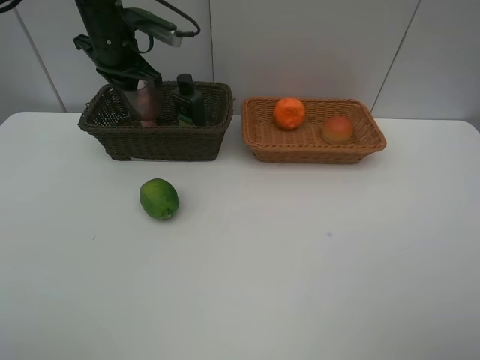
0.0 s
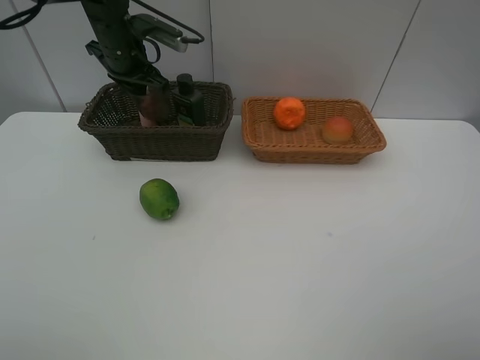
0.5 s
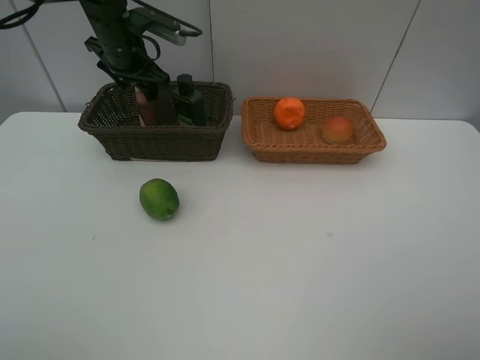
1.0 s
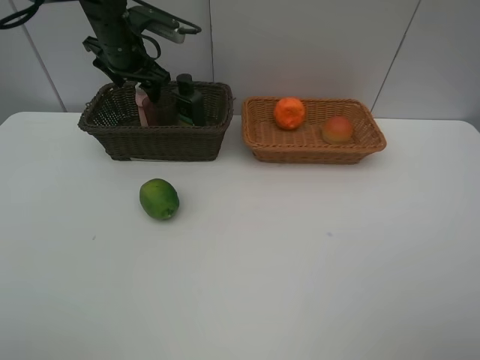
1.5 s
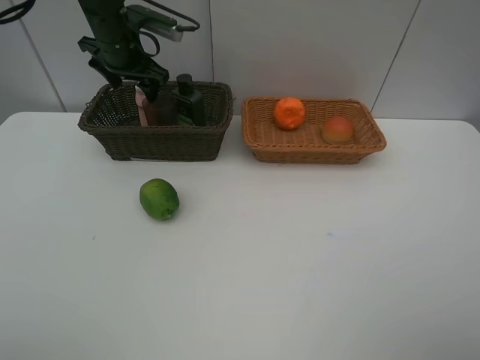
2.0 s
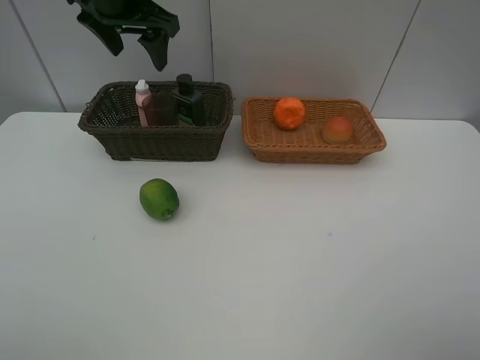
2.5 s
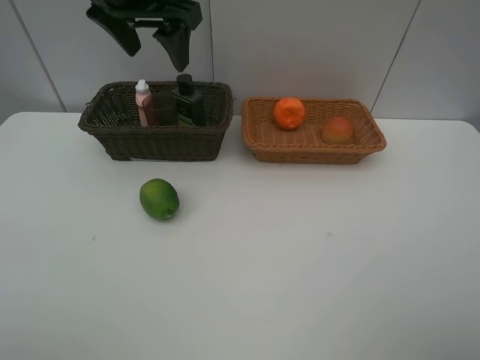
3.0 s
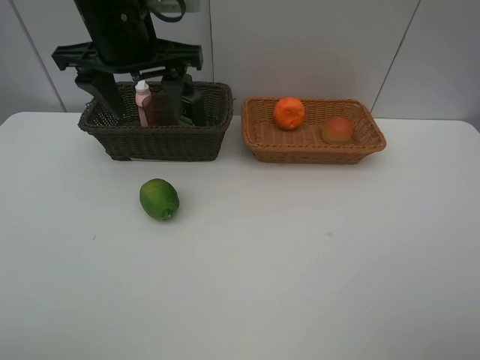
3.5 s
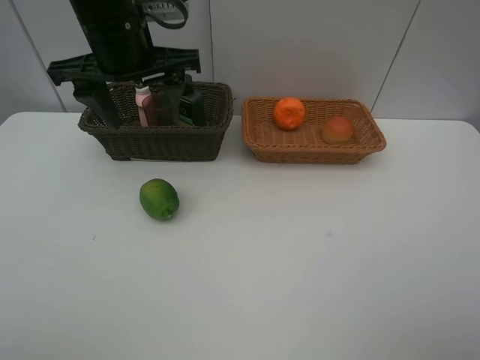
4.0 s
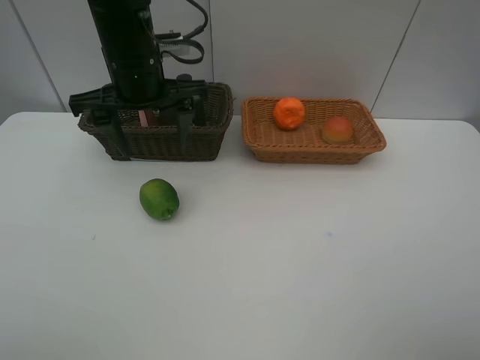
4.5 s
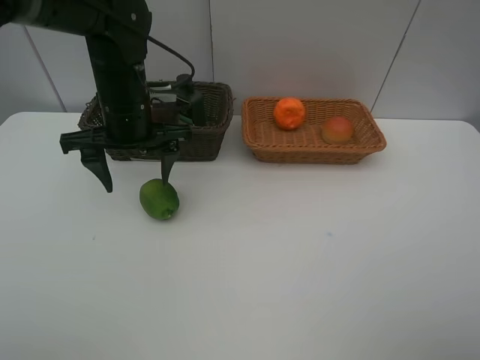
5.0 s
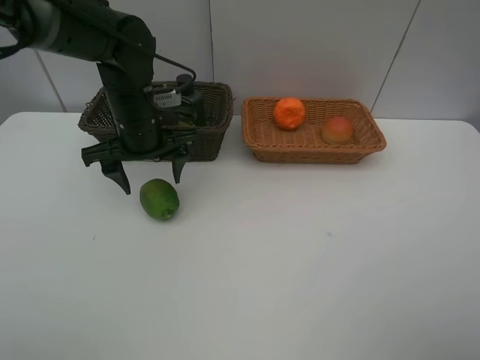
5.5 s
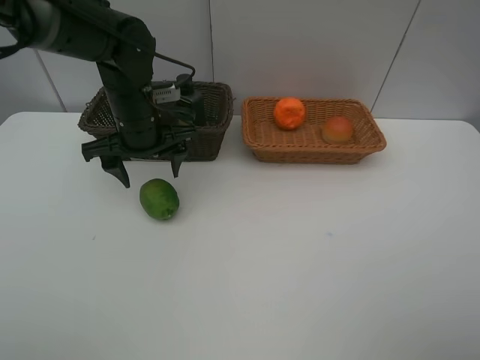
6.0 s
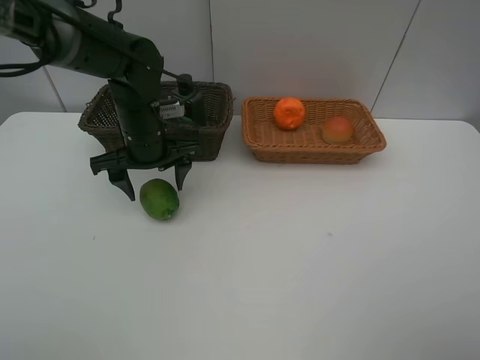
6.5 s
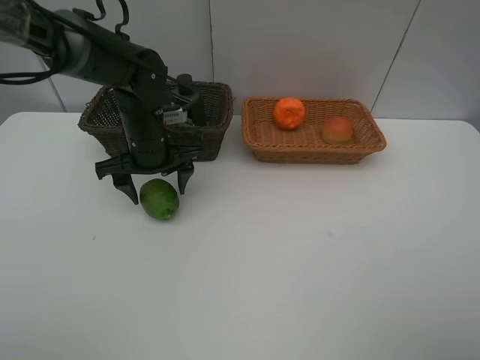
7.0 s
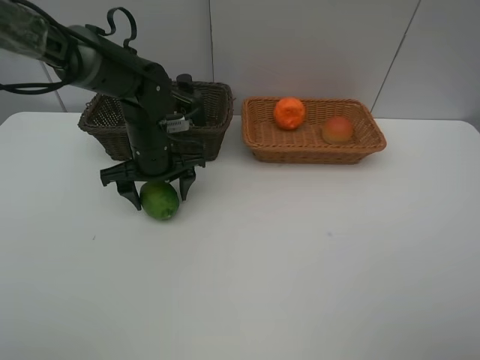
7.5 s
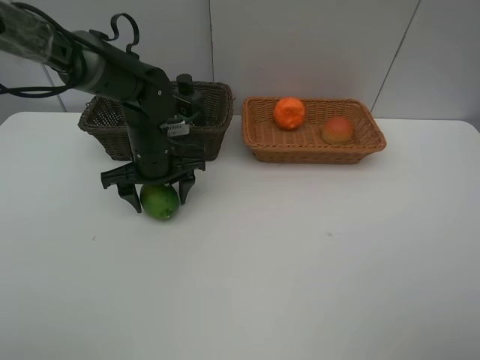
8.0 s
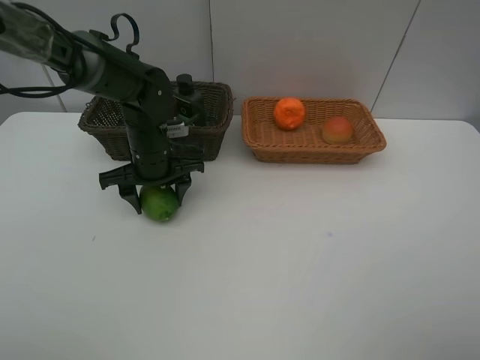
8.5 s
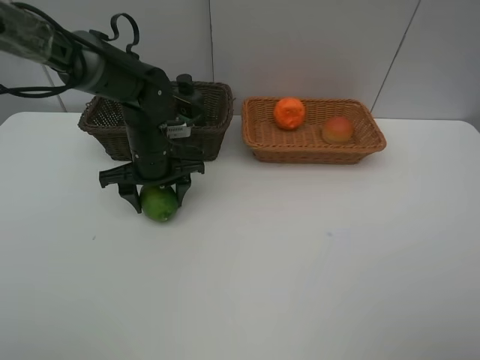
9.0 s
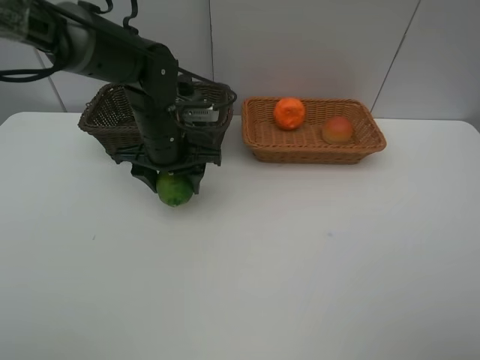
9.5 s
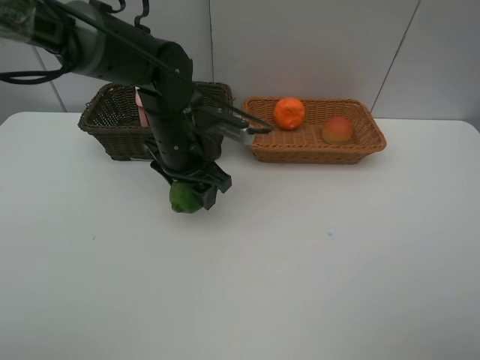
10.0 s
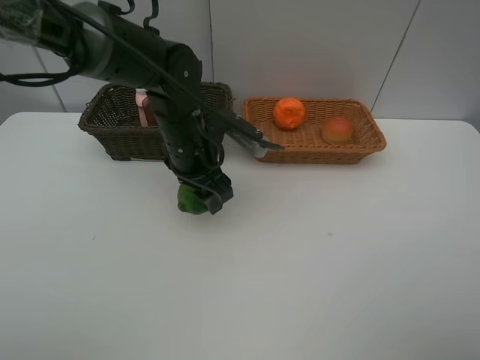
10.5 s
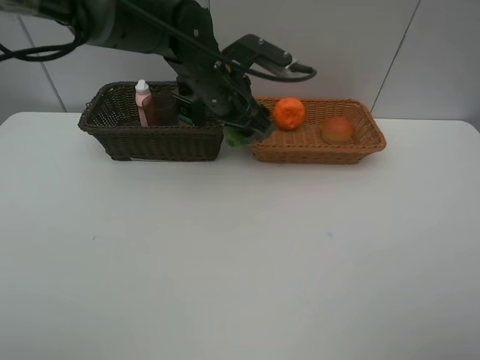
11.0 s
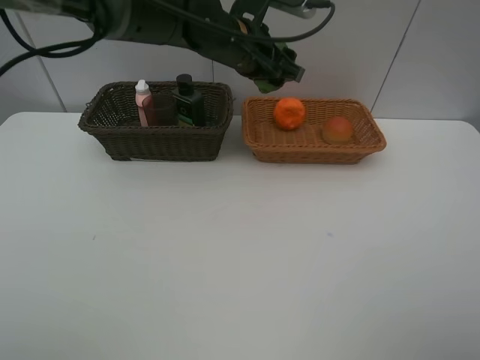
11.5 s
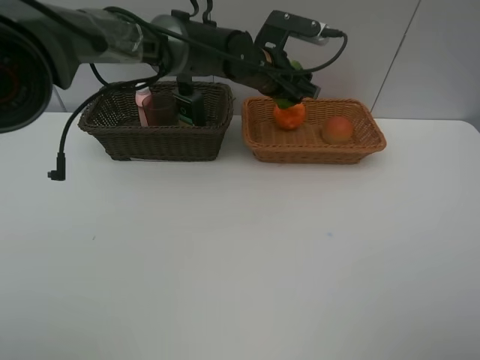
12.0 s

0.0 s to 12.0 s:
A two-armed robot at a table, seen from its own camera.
Task of the whole recording: place multiple objects separately in different baskets.
0.0 to 2.0 s: The left gripper opens up.
2.0 to 4.0 s: The left gripper moves backward, to the right and upward, approximately 20 cm.
4.0 to 6.0 s: The left gripper shifts some 15 cm downward.
6.0 to 8.0 s: The left gripper goes about 5 cm downward.
8.0 to 10.0 s: The left gripper goes approximately 5 cm to the right.
10.0 to 12.0 s: The left gripper moves to the right and forward, approximately 15 cm.

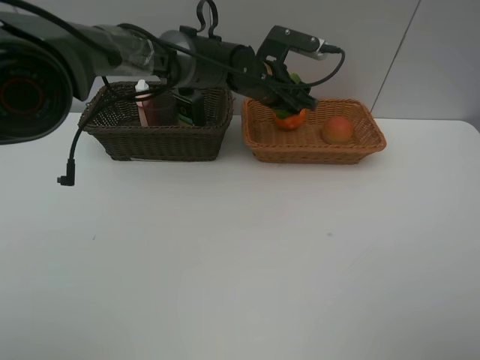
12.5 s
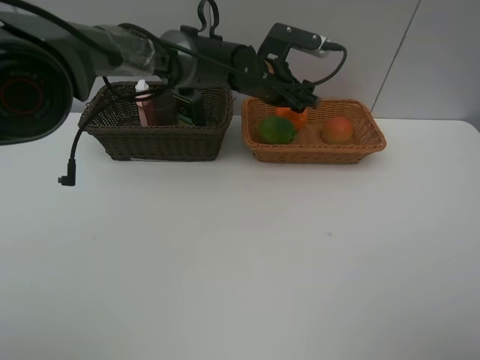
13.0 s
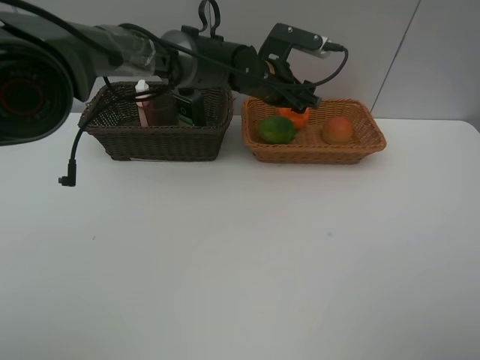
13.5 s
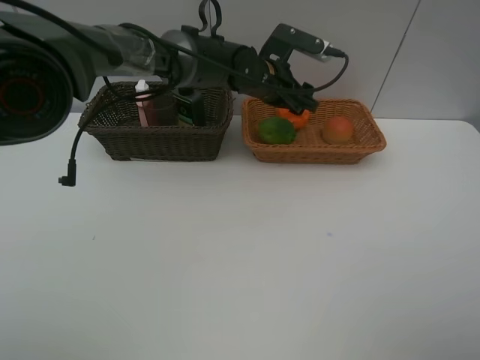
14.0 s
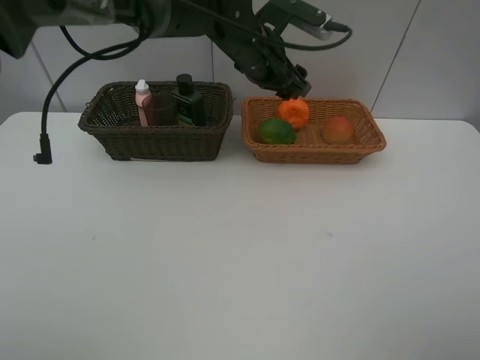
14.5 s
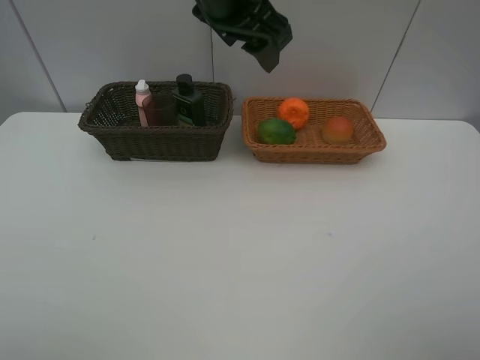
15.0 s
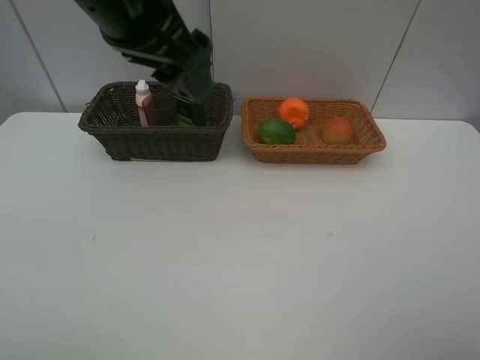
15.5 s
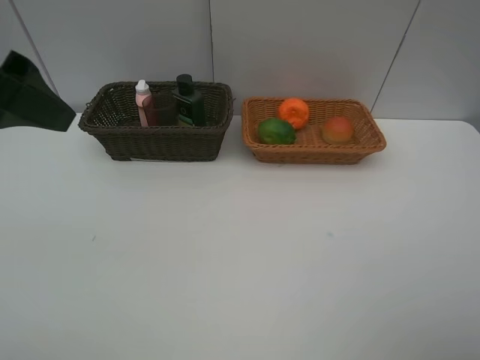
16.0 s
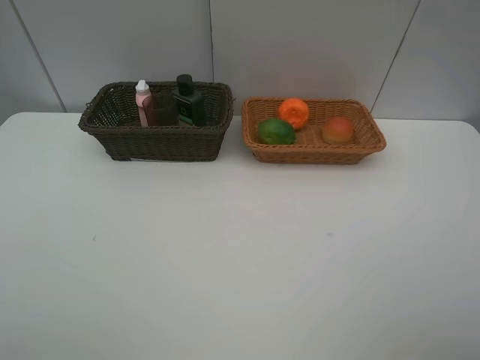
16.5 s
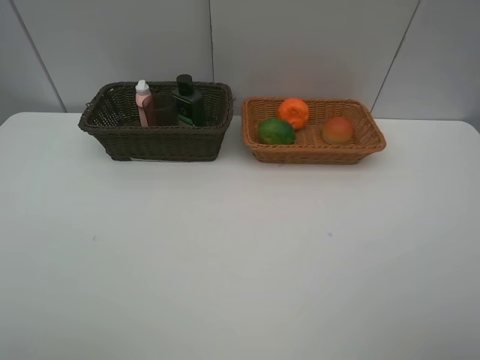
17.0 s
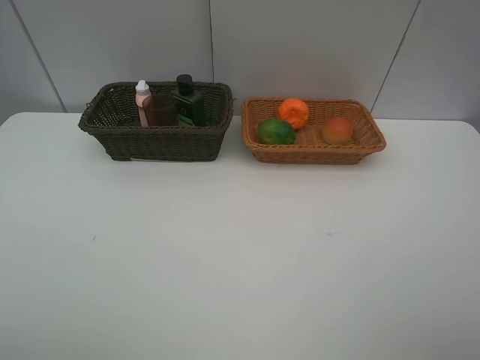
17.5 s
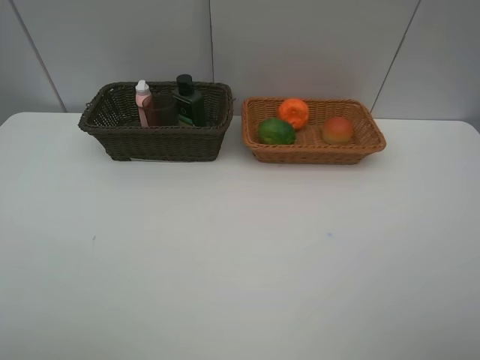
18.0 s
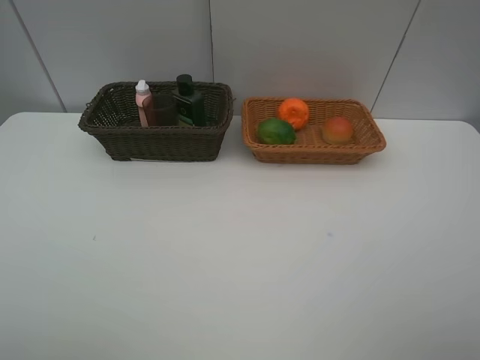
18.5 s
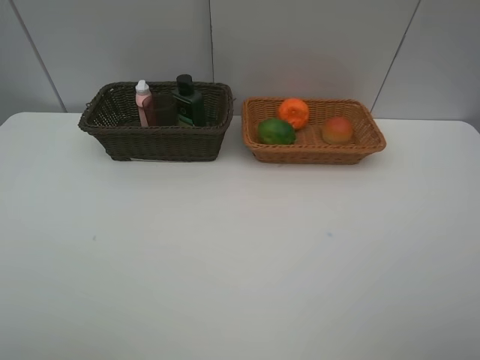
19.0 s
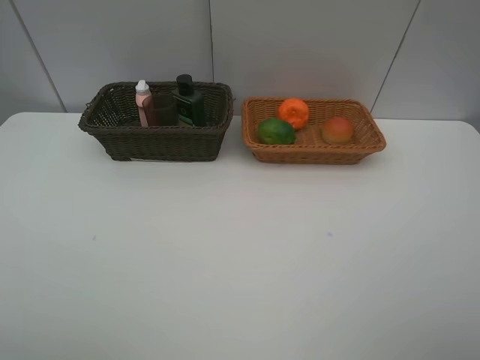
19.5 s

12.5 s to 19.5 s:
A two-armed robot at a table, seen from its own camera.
Task of the whole recording: place multiple objects separately in different baskets.
12.5 to 14.5 s: The left gripper moves upward, about 5 cm.
14.5 to 16.0 s: The left gripper goes roughly 35 cm to the left, backward and upward.
16.0 to 17.5 s: The left gripper moves backward and to the left, approximately 20 cm.
17.5 to 19.5 s: Both grippers stay about where they are.

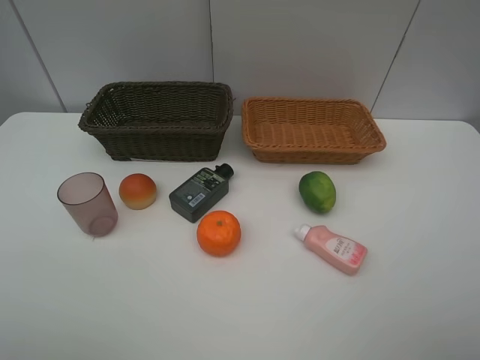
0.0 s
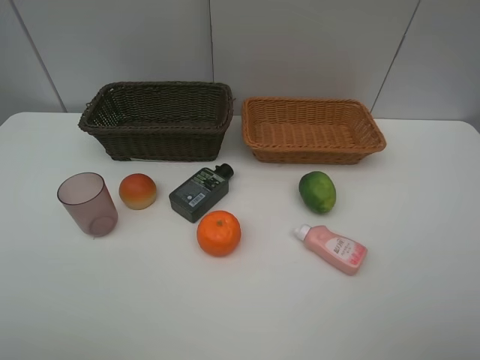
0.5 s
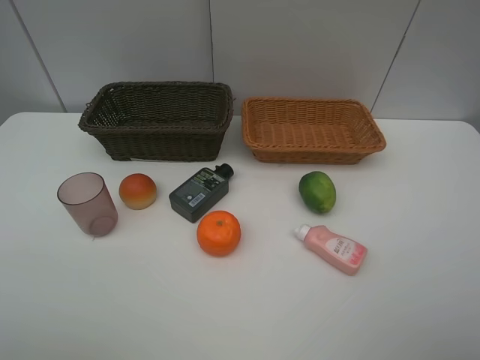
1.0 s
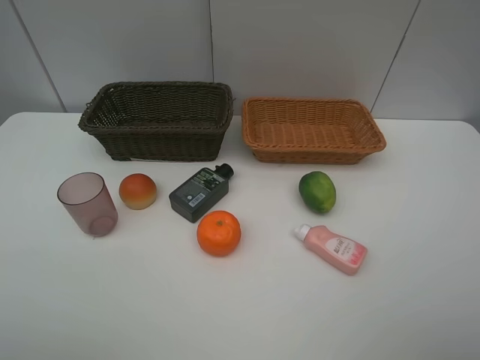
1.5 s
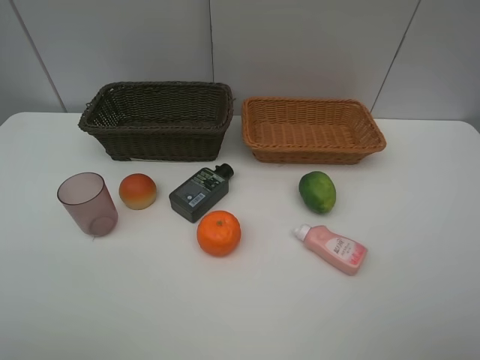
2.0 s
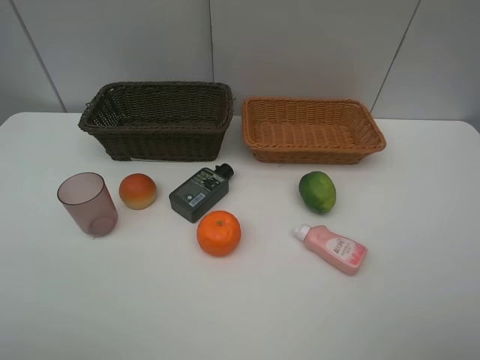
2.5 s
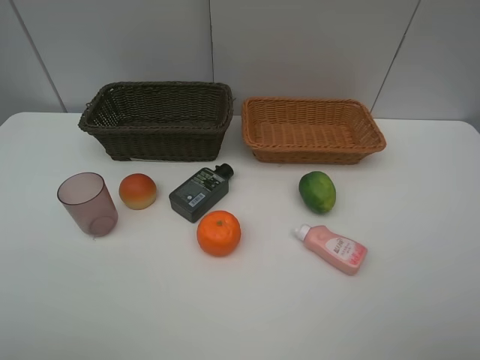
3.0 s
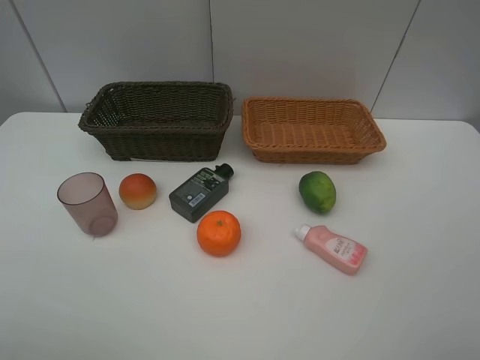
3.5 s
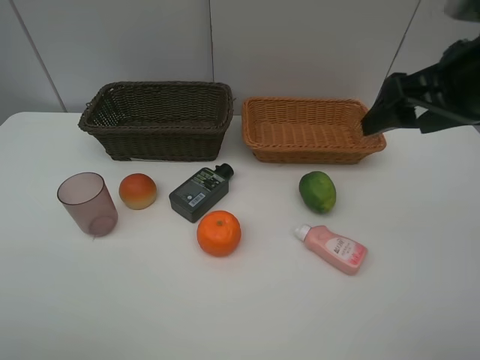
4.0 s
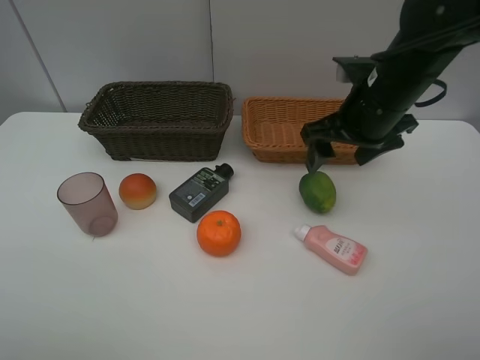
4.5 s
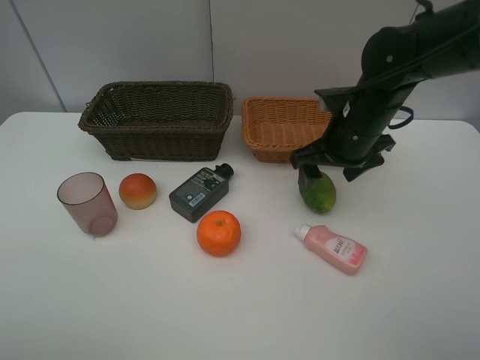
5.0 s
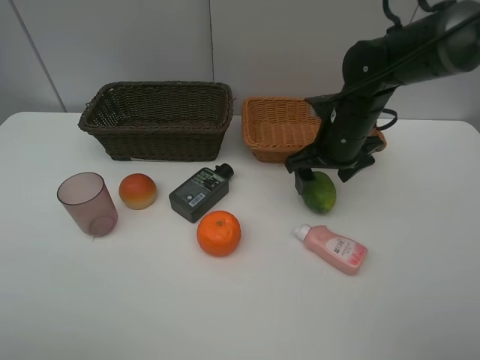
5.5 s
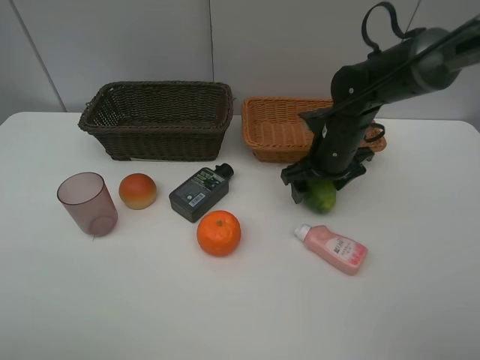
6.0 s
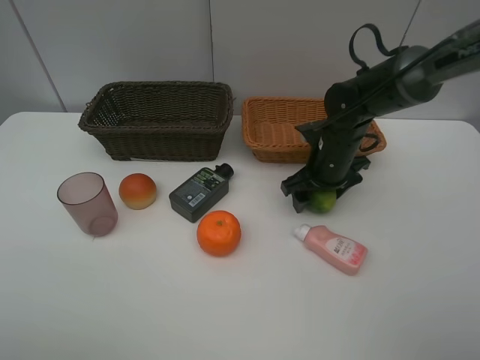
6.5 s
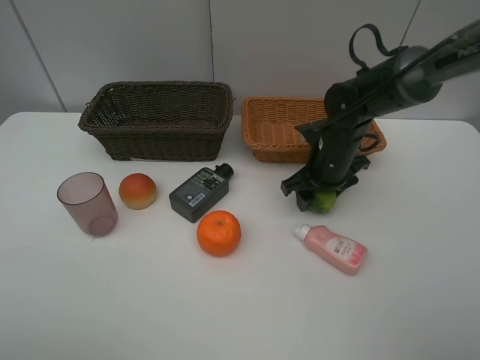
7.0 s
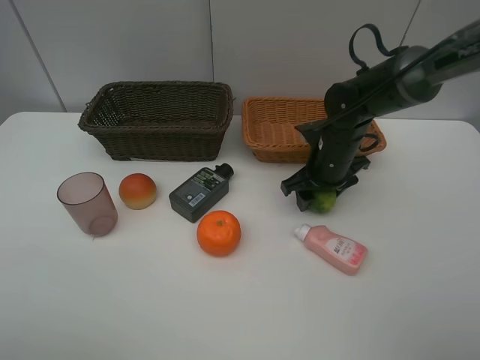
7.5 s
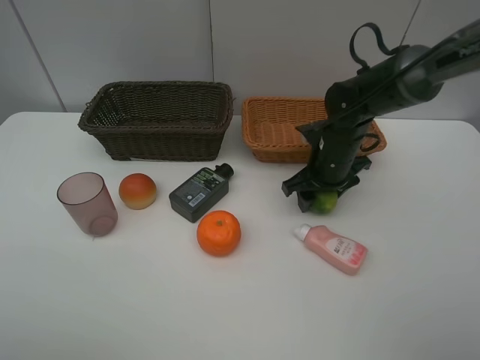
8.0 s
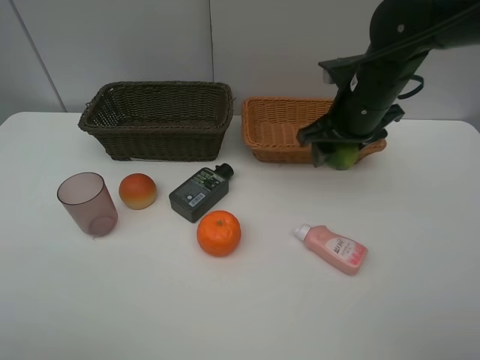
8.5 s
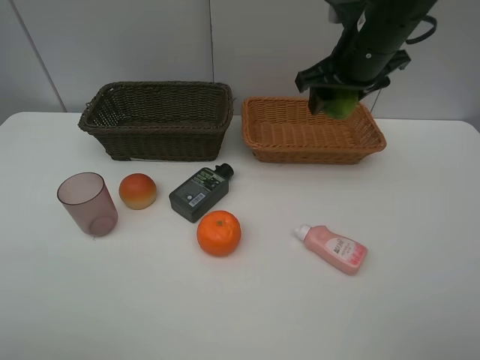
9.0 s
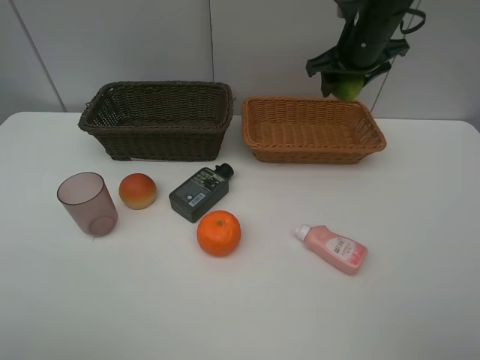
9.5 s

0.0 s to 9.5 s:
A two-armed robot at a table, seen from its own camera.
Task of the whole recording: place multiple objects separately in different baskets.
0.0 to 2.0 s: Both grippers stay put.
2.0 to 4.0 s: The right gripper moves forward, about 25 cm.
4.0 to 5.5 s: The right gripper shifts roughly 20 cm downward, forward and to the left.
5.5 to 7.5 s: The right gripper is displaced downward by approximately 5 cm, and closes.
7.5 to 9.5 s: The right gripper travels upward and forward by some 15 cm.
